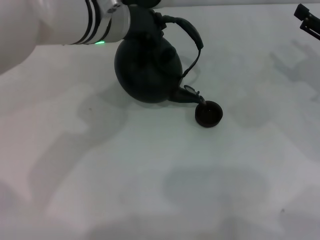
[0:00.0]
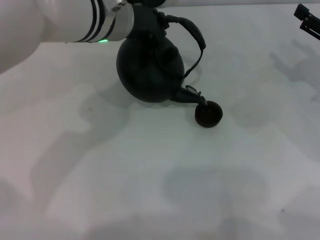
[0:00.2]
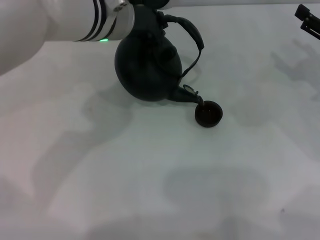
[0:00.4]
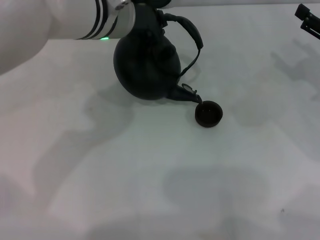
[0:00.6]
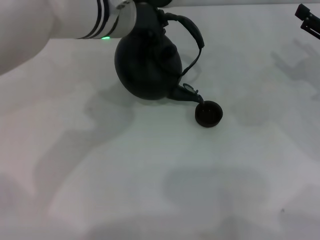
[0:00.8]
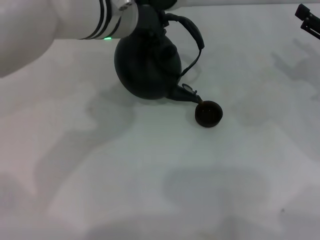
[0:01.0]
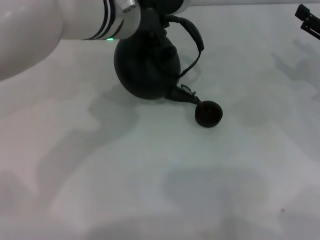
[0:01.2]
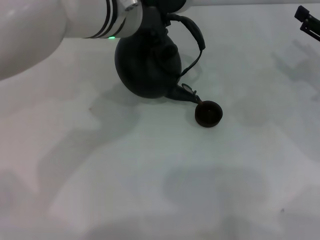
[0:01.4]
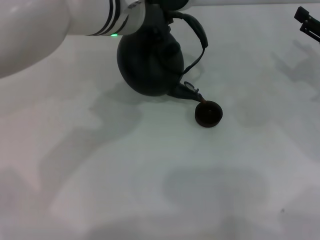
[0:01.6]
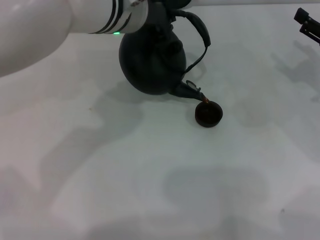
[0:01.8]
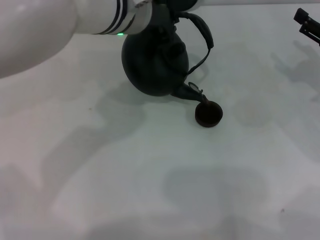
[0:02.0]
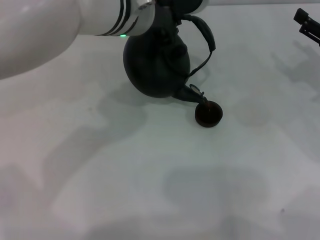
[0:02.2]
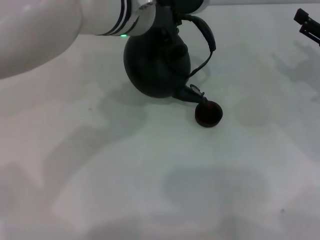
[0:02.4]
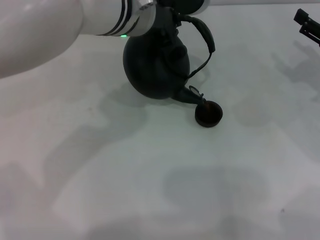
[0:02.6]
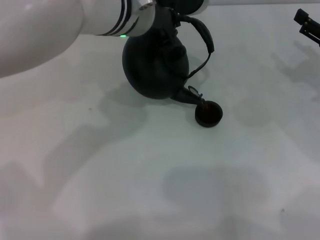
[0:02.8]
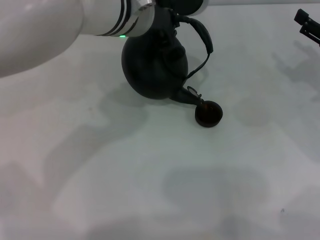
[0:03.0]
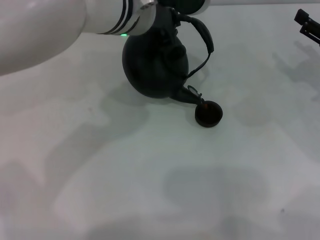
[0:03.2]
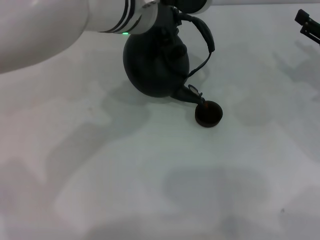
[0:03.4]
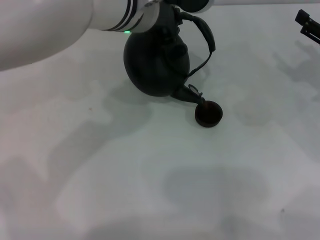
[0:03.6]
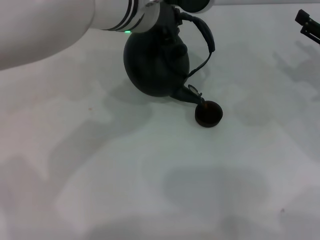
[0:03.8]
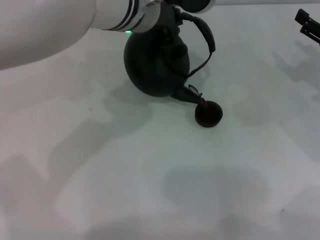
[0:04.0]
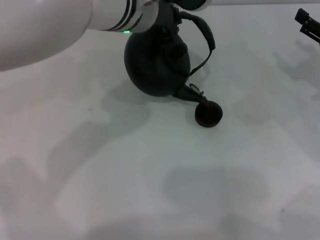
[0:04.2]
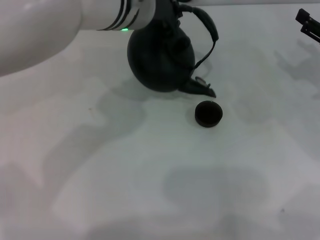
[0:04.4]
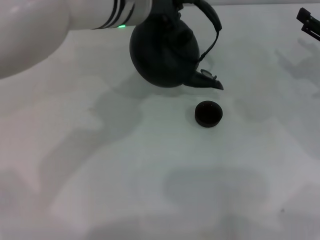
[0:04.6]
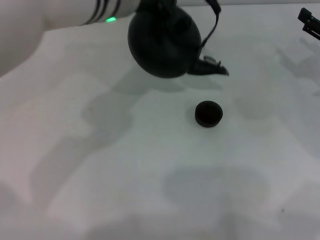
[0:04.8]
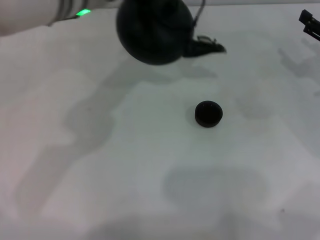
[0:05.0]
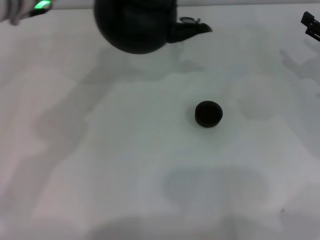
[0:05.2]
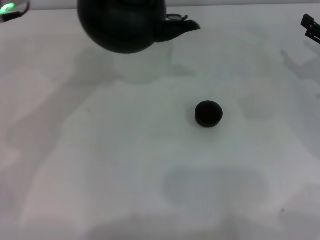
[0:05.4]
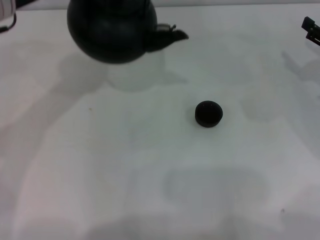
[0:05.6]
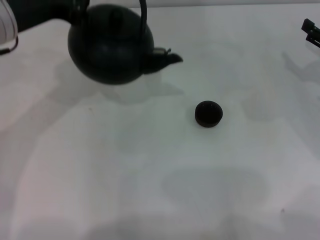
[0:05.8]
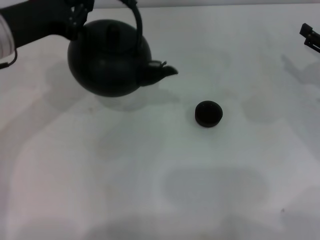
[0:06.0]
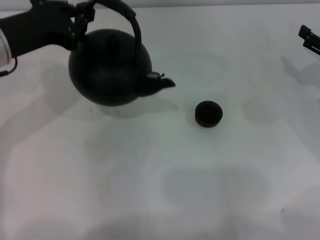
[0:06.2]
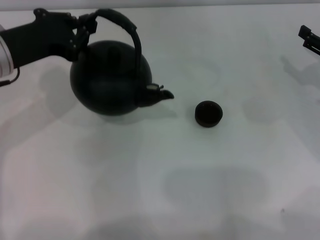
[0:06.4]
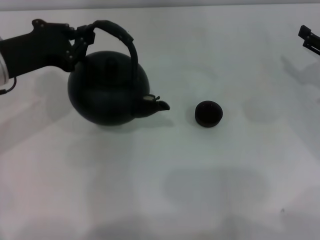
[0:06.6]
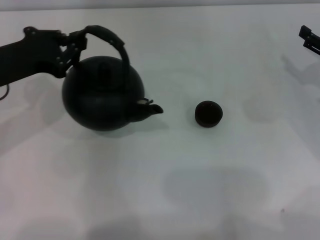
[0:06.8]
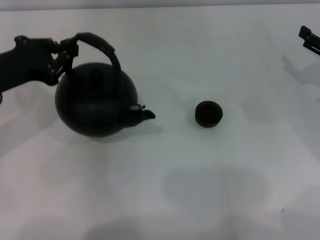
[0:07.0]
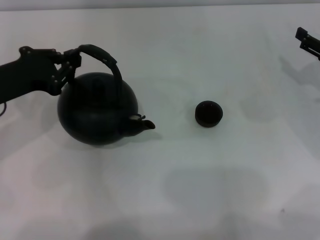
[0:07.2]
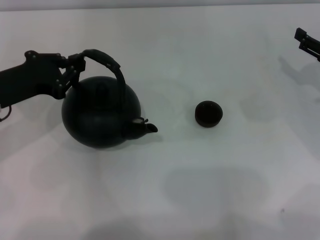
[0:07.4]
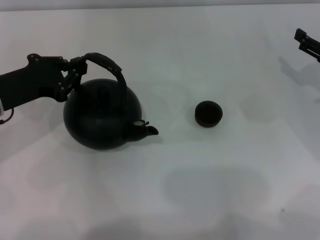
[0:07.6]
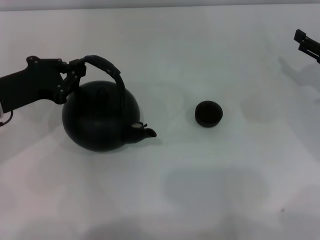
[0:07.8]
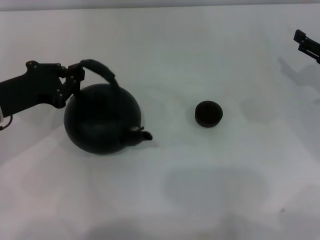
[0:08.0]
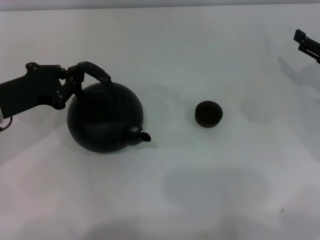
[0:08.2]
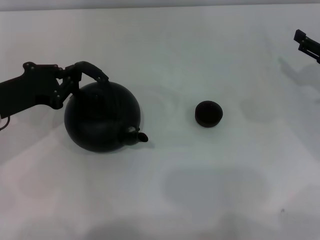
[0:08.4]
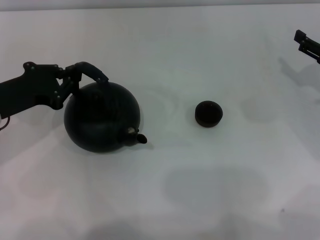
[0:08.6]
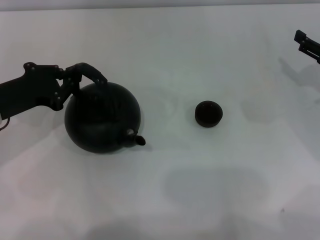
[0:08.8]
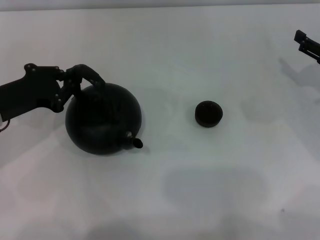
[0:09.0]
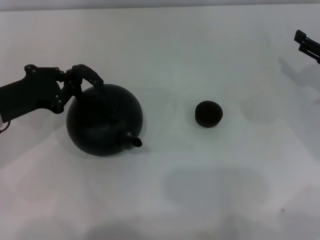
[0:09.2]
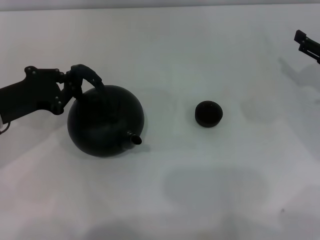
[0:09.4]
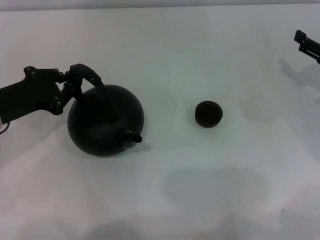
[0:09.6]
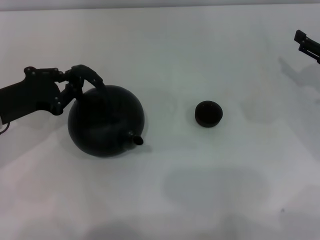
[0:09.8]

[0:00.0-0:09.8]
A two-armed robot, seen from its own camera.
Task of the whole recording: Grasp the handle of the teapot with one hand and pour tea into the teacup.
Step, 0:00.0 to 0:04.6: Pour tea into the teacup with the left gripper.
0:00.0 to 0:02.8: The grippers move only a little.
0:02.8 to 0:04.2: Both grippers stay about where they are.
0:04.2 to 0:05.6: The left gripper moves to the left, about 15 cm.
0:05.6 to 0:07.0: The left gripper shifts roughly 10 cm downward and to the left.
0:07.0 to 0:08.4: The grippers move only a little.
0:08.4 to 0:09.8: The two grippers keep their place.

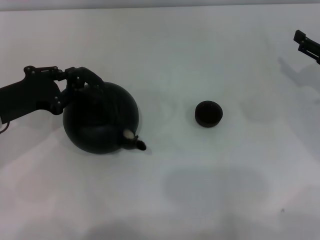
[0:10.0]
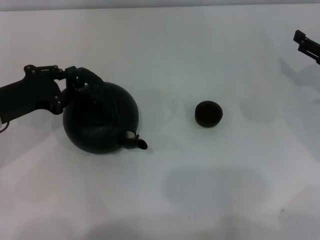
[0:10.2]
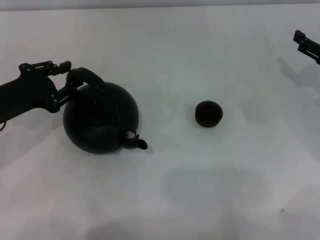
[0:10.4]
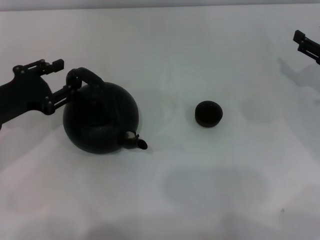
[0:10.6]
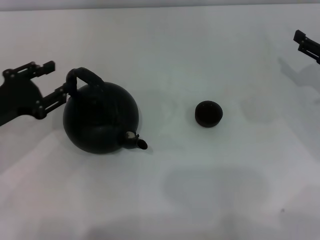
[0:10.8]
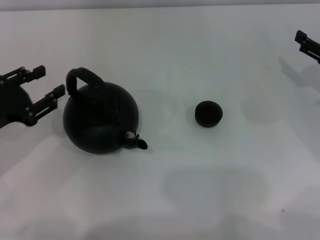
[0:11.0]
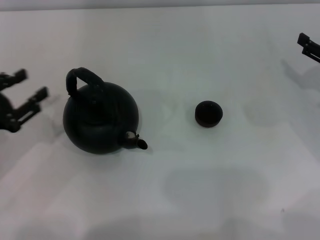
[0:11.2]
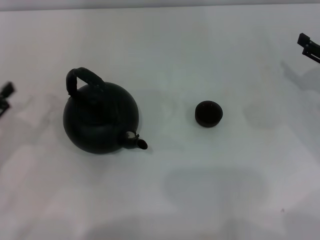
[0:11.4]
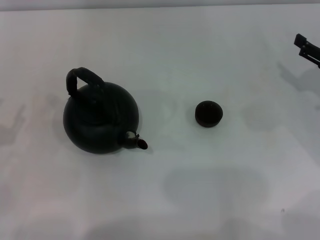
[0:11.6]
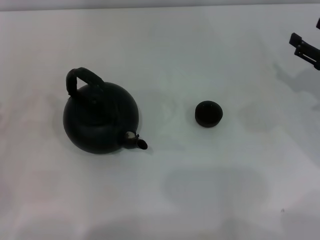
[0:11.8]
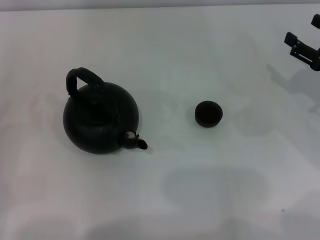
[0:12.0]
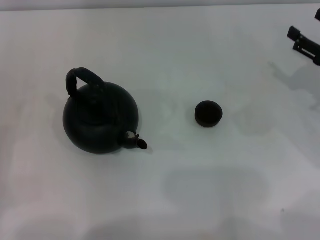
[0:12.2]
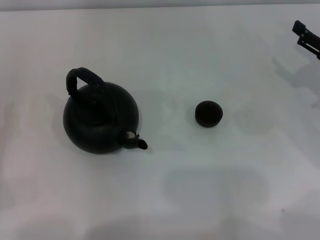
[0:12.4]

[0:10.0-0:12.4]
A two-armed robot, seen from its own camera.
Task of the whole recording: Grasp the handle of the teapot with one hand and pour tea into the teacup.
0:10.0 to 0:11.2: The left gripper moves backward, some 5 cm, and opens up.
0:11.2 to 0:12.4: The left gripper shifts roughly 10 cm to the left and backward.

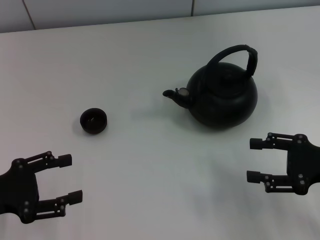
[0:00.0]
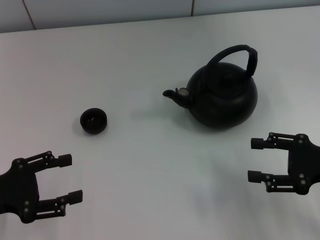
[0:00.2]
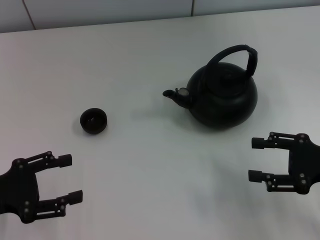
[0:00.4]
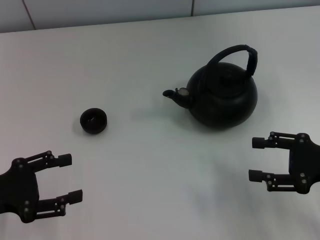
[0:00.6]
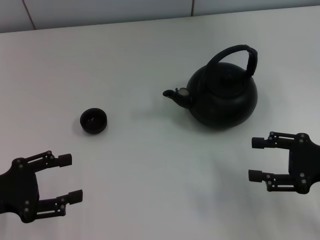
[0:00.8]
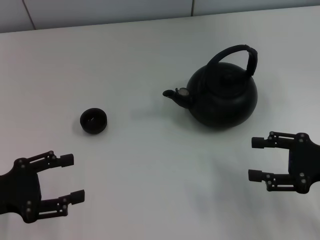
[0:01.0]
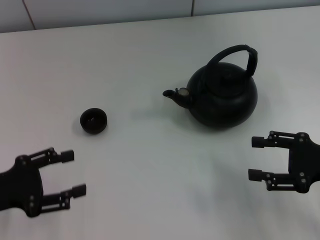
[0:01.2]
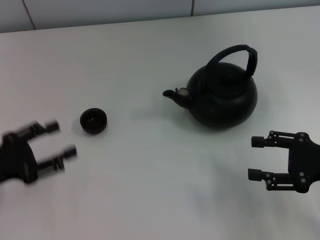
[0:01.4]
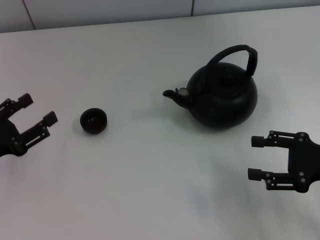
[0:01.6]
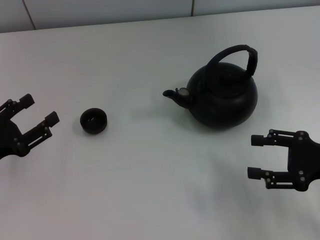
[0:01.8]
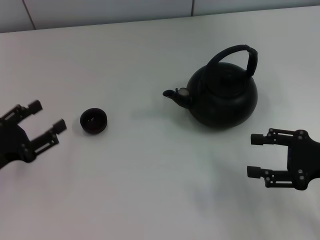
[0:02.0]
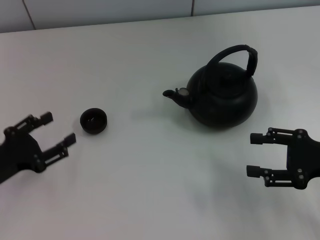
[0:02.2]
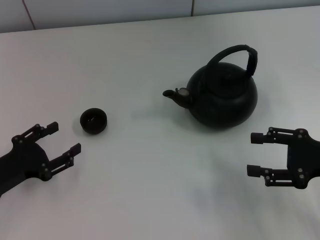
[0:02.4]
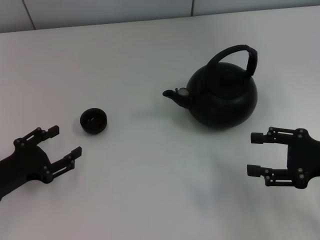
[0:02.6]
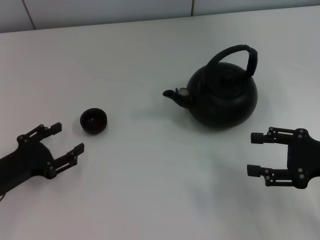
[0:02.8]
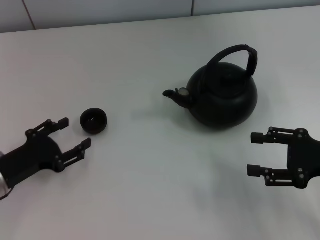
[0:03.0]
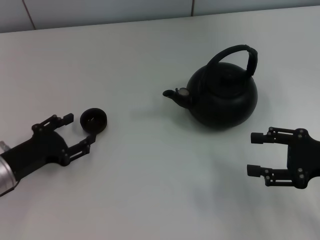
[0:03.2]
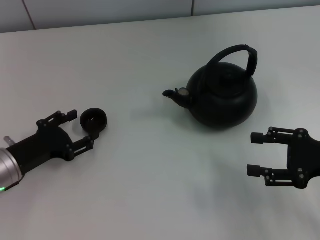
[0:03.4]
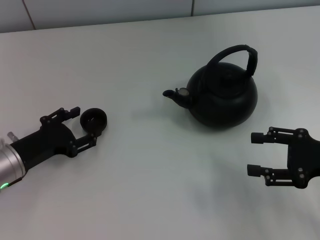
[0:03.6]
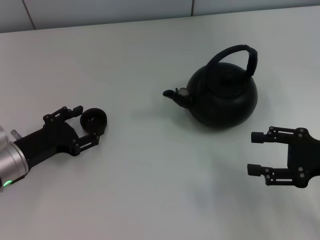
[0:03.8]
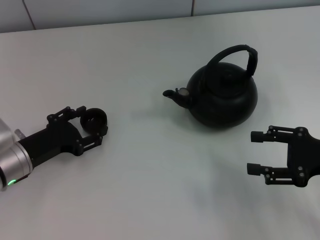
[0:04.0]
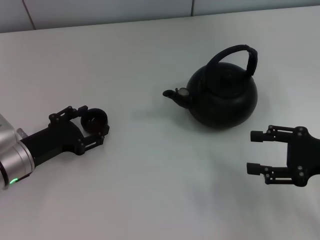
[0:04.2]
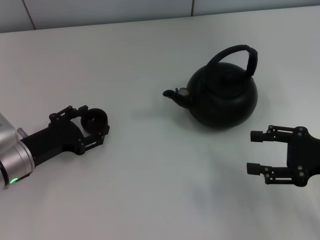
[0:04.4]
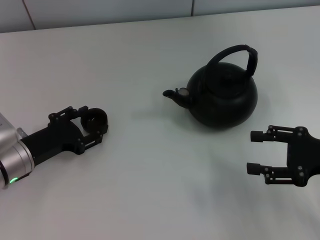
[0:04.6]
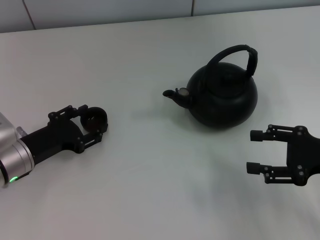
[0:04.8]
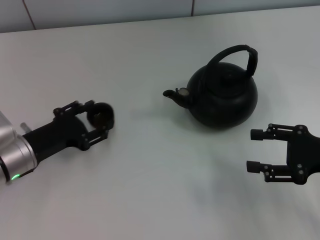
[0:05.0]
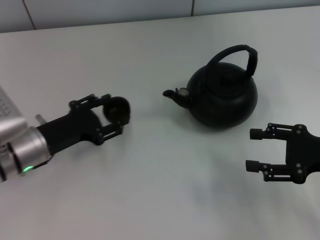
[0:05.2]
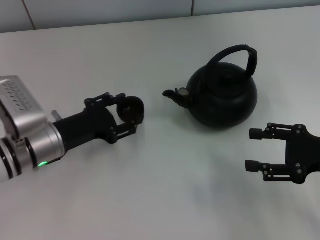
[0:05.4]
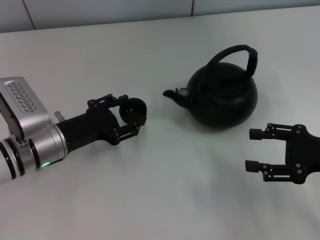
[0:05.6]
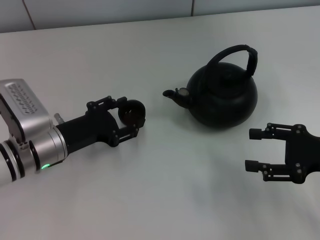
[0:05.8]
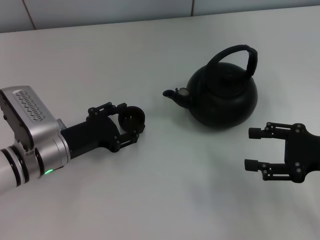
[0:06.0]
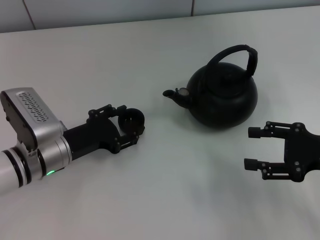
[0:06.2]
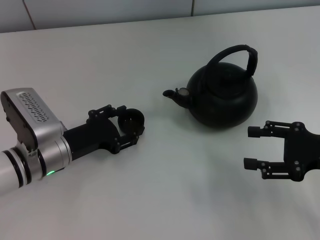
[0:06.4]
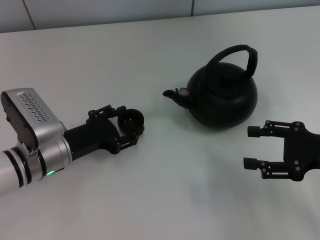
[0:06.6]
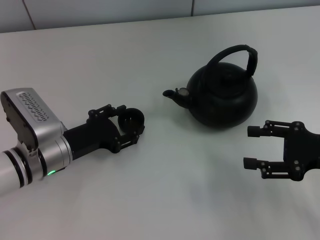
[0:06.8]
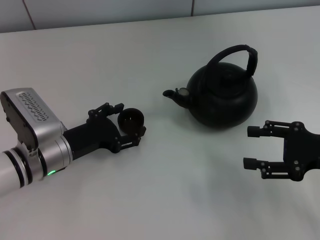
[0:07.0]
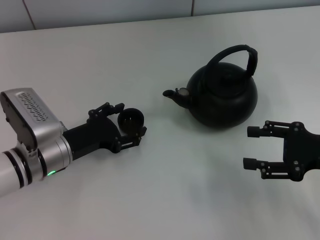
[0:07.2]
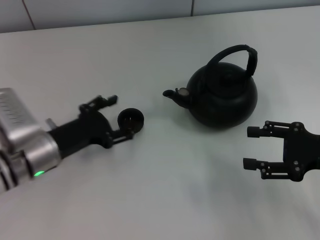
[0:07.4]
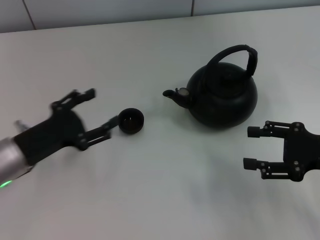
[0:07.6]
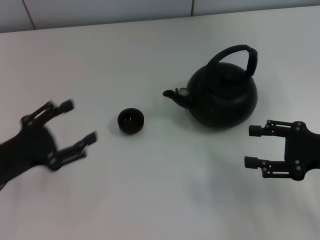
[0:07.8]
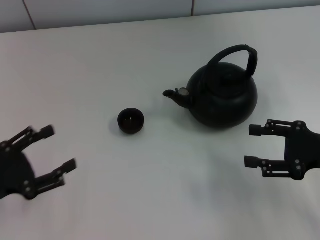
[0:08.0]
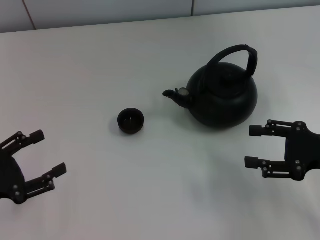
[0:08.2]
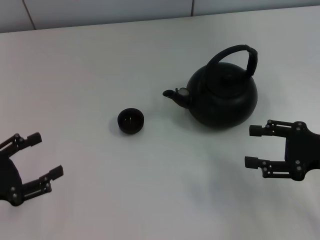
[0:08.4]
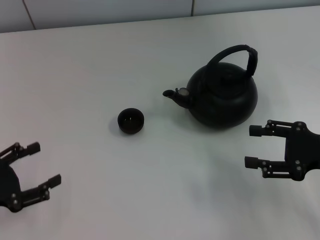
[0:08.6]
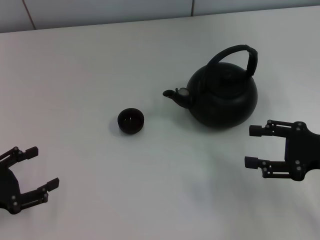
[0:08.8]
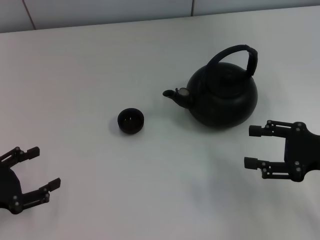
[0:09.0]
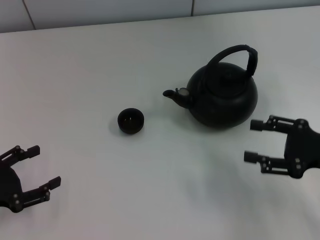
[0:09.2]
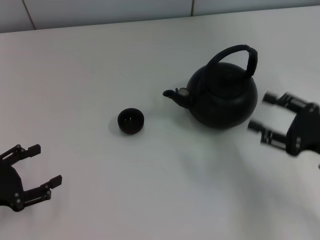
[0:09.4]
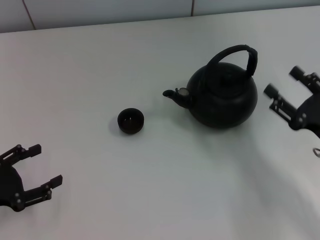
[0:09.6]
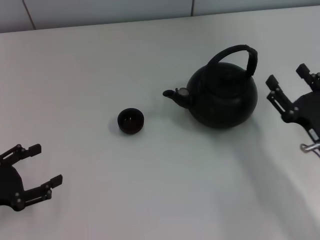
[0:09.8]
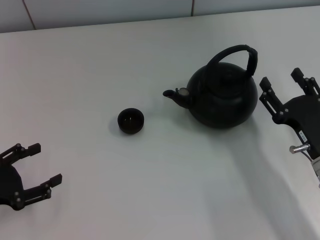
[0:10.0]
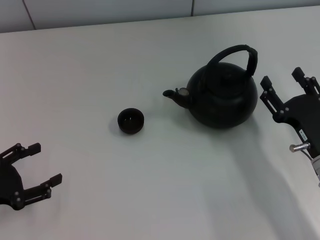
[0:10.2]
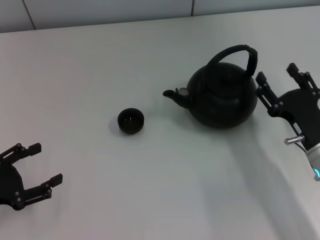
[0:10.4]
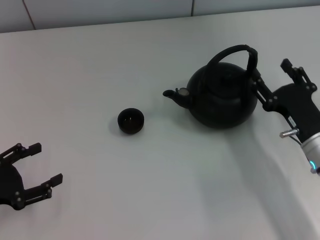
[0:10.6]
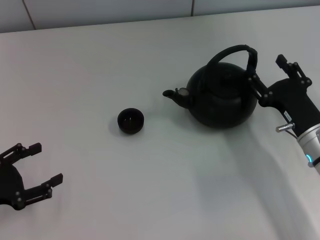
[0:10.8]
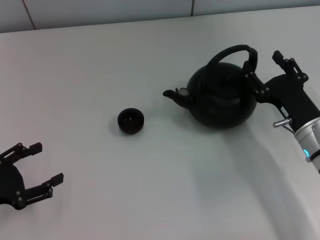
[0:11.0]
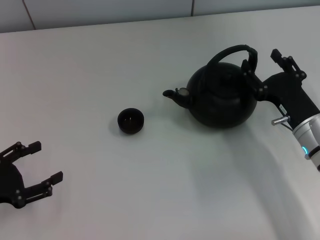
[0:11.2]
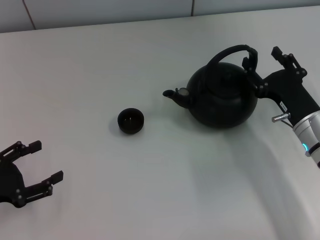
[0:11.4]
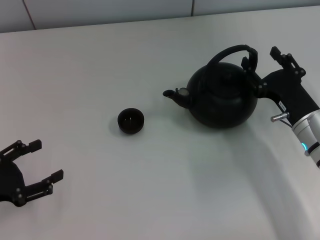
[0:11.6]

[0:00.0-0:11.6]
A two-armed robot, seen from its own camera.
Task of the whole recording: Grasp the handle of the teapot with one hand and pour tea into the teacup.
Step, 0:00.0 to 0:05.0: Pick up the teacup with the left gripper.
Step, 0:05.2 to 0:07.4: Place the teacup in the center of view with the left gripper.
0:00.0 to 0:01.4: The grippers stay close to where they were, moving slightly.
0:01.4 to 0:02.8: The left gripper shifts by about 5 cm.
0:02.8 to 0:04.4: The left gripper ends up some 5 cm from where it was.
0:04.4 to 0:05.8: The left gripper changes place by some 5 cm.
0:05.8 to 0:07.2: The left gripper opens up.
0:07.2 to 0:08.8: The left gripper travels to the left and backward by roughly 20 cm.
0:08.8 to 0:10.2: The right gripper goes approximately 10 cm downward and to the left.
0:10.2 to 0:11.6: The right gripper heads forward, covering about 5 cm.
